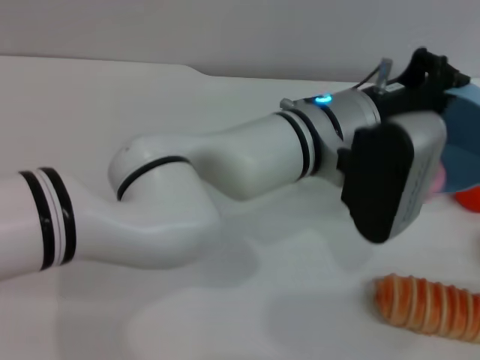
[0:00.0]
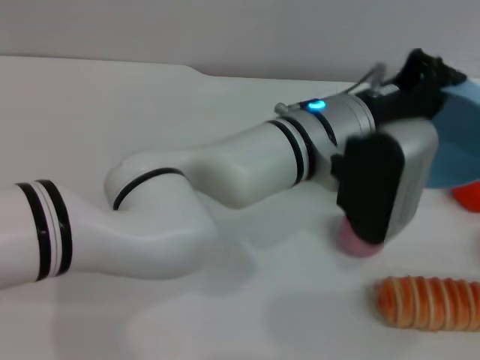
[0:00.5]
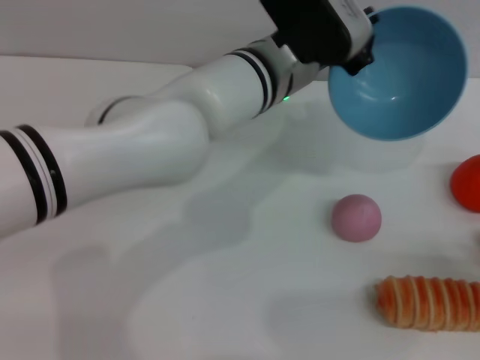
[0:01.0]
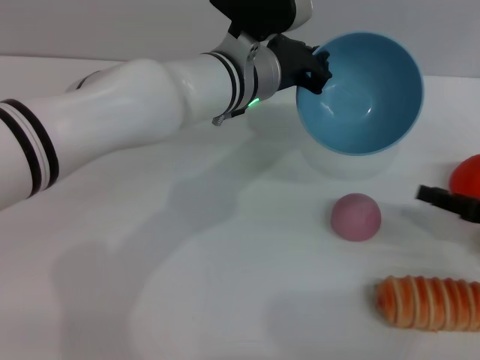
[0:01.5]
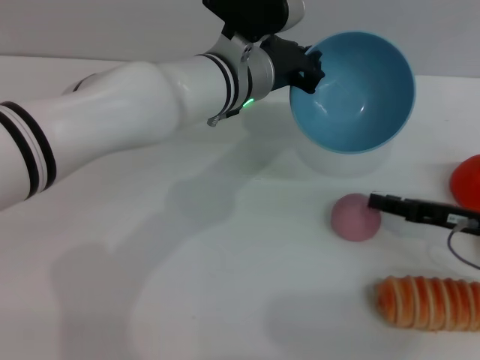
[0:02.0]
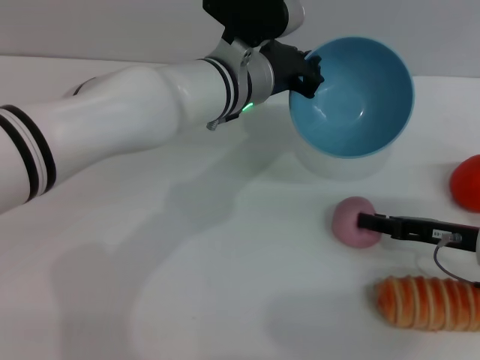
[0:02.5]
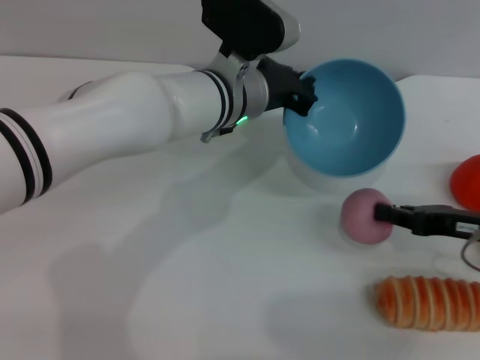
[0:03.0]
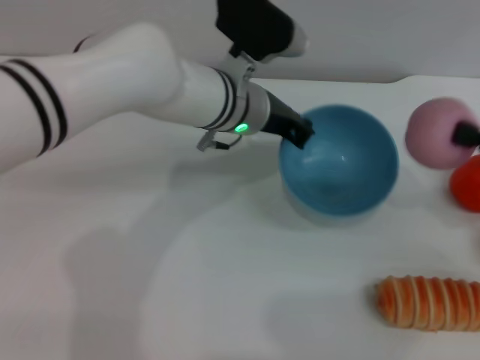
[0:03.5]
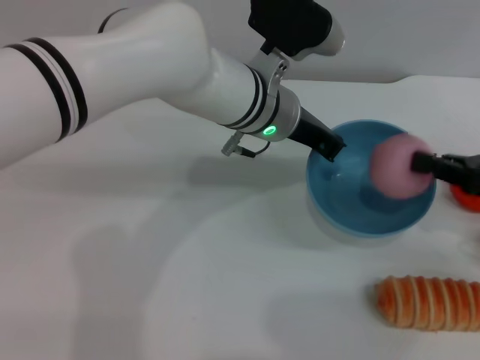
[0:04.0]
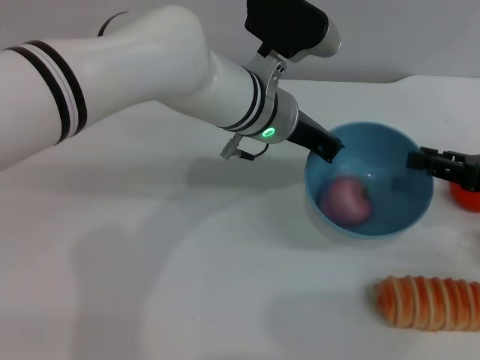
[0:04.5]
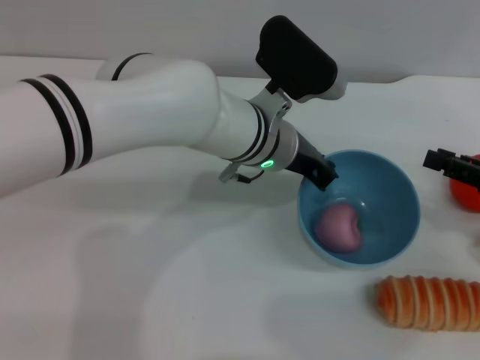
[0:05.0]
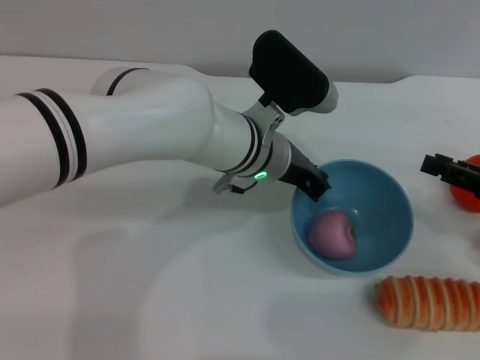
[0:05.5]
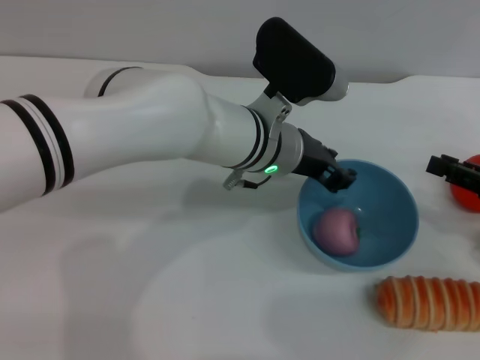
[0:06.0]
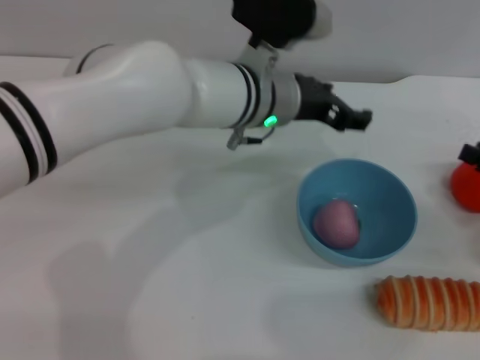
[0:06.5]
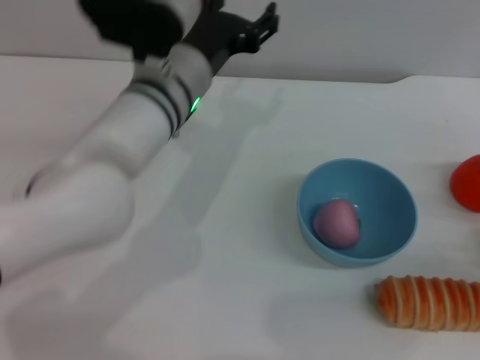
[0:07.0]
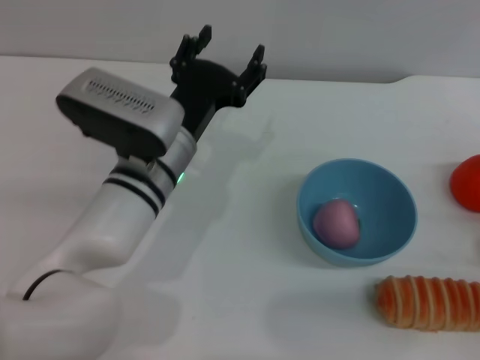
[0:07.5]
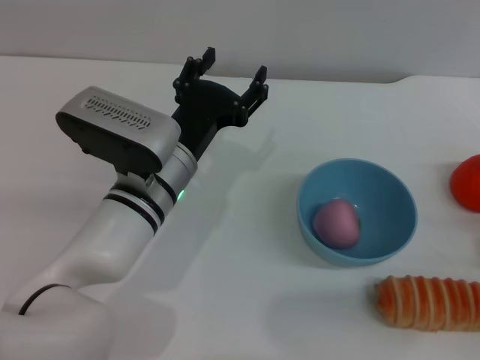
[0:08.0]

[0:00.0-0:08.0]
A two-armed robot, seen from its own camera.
Task of the whole recording: put the peach into the blue bowl and pour it out repeatedly.
Step, 0:01.0 to 0:03.0: Pick up the peach with the right gripper.
Step, 0:03.5 to 0:04.5: Place the peach into the bowl.
Step, 0:05.0 to 0:06.5: Place the bowl on the table.
0:00.0 to 0:02.0: The left gripper goes roughly 10 cm forward and to the left. The right gripper goes approximately 20 cm forward and to the left.
0:02.0 to 0:04.0: The right gripper travels upward by approximately 10 cm, and closes.
0:04.0 to 0:06.0: The right gripper opens up.
0:06.0 to 0:08.0: The left gripper shifts some 10 cm to the left and backward, and opens its fingers. Meanwhile the right gripper travels backward and downward by roughly 10 cm, and opens.
